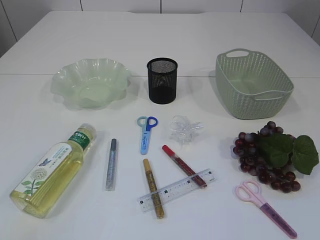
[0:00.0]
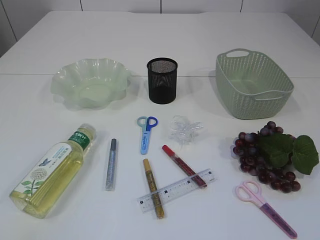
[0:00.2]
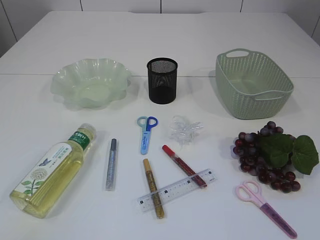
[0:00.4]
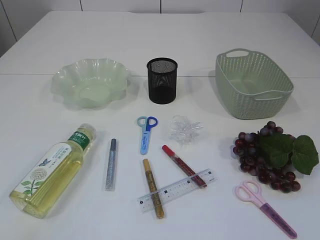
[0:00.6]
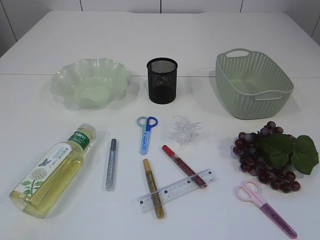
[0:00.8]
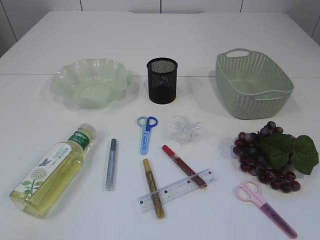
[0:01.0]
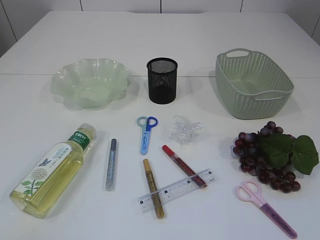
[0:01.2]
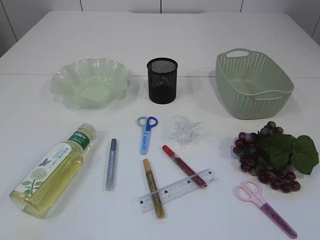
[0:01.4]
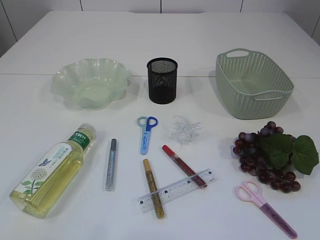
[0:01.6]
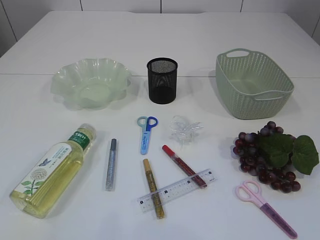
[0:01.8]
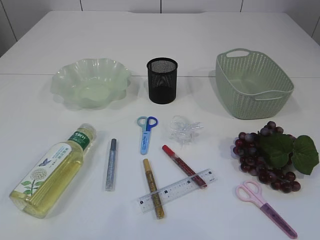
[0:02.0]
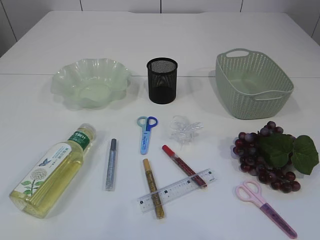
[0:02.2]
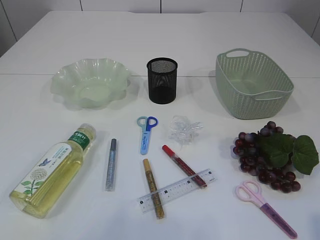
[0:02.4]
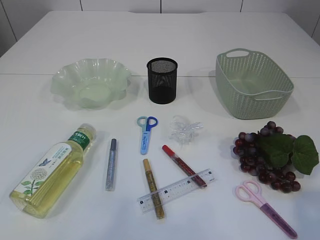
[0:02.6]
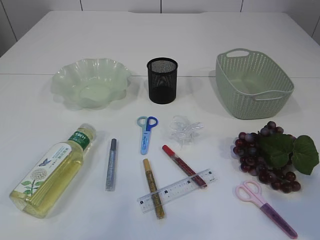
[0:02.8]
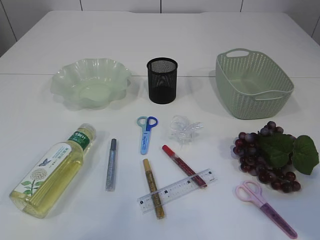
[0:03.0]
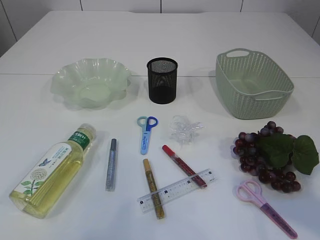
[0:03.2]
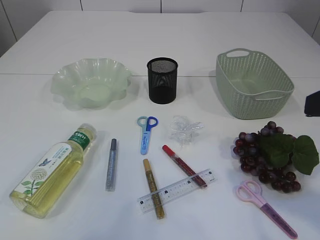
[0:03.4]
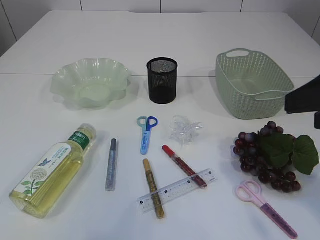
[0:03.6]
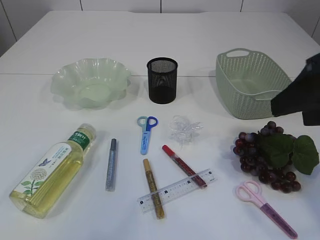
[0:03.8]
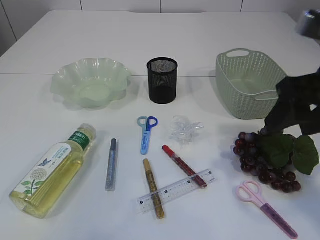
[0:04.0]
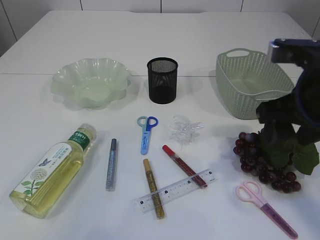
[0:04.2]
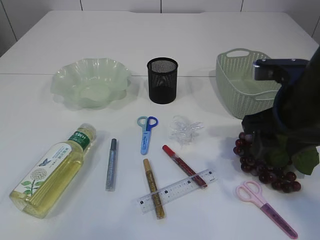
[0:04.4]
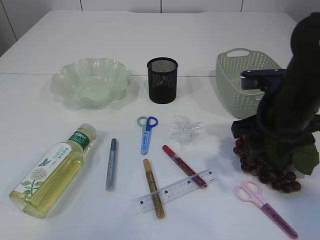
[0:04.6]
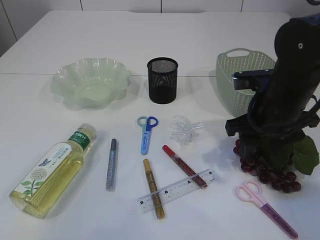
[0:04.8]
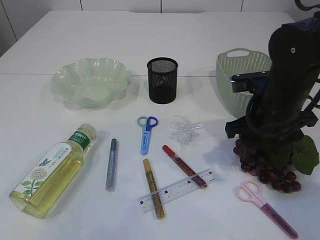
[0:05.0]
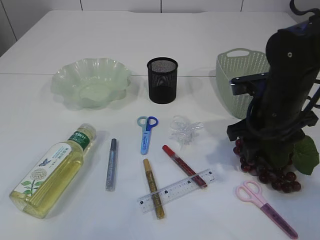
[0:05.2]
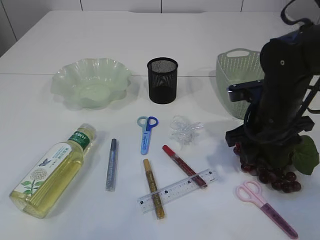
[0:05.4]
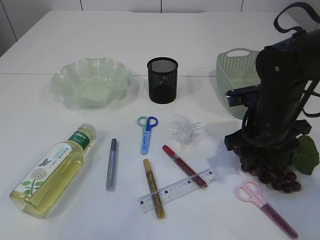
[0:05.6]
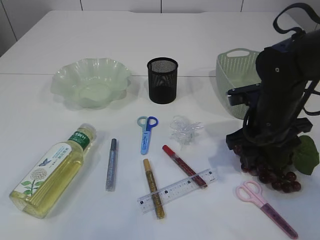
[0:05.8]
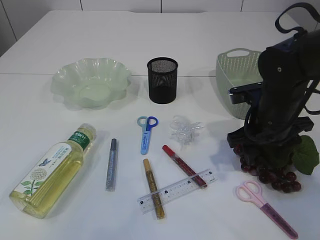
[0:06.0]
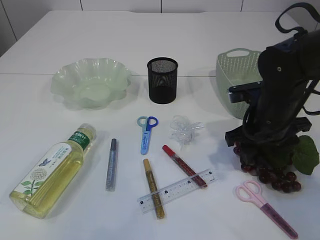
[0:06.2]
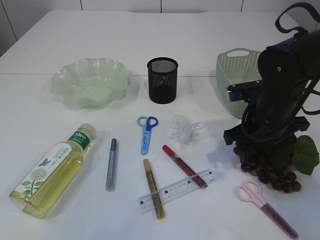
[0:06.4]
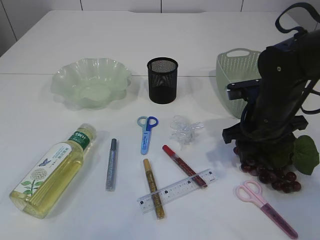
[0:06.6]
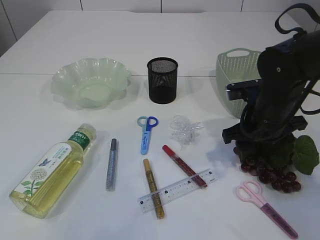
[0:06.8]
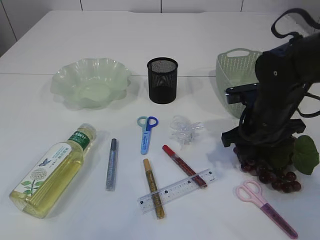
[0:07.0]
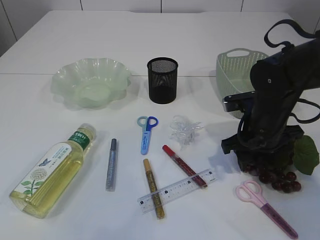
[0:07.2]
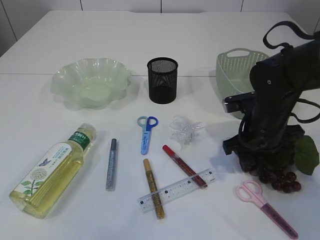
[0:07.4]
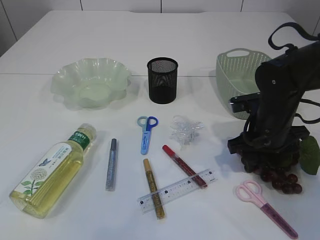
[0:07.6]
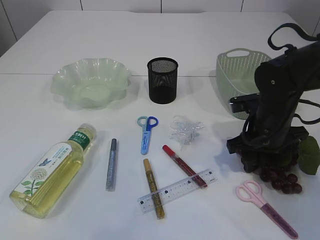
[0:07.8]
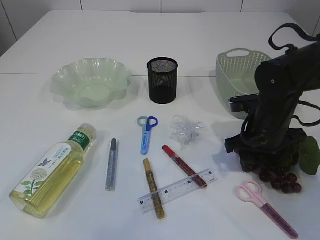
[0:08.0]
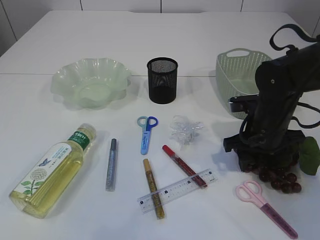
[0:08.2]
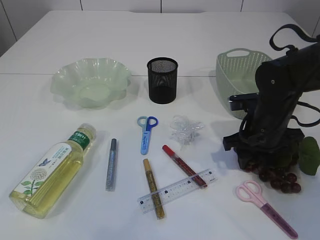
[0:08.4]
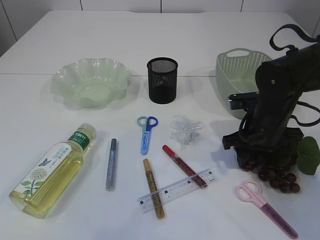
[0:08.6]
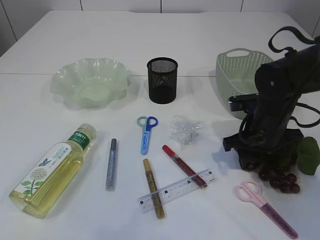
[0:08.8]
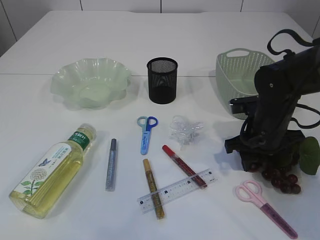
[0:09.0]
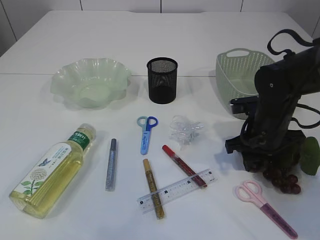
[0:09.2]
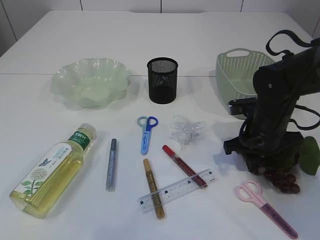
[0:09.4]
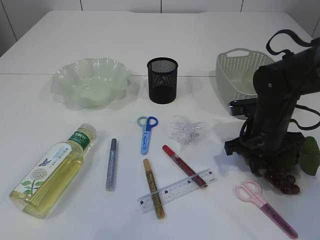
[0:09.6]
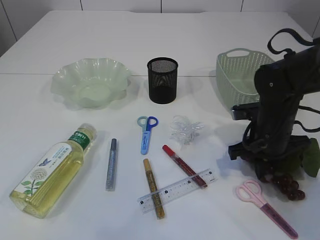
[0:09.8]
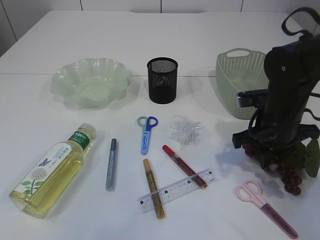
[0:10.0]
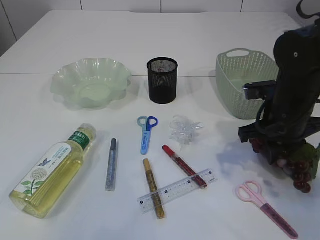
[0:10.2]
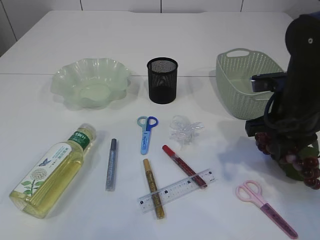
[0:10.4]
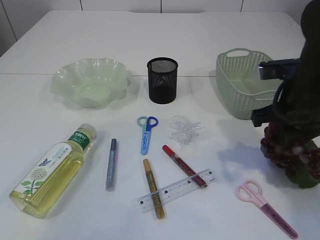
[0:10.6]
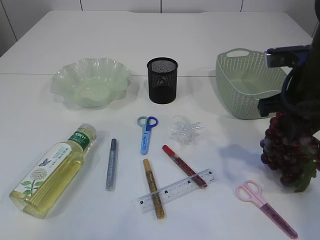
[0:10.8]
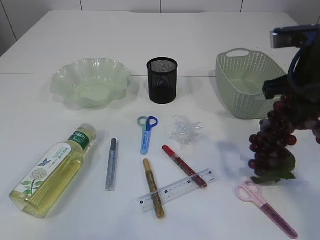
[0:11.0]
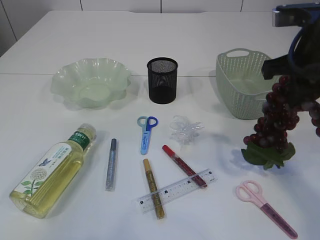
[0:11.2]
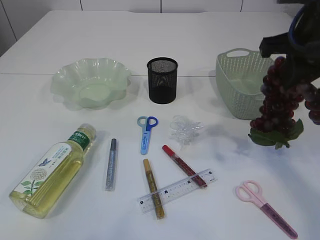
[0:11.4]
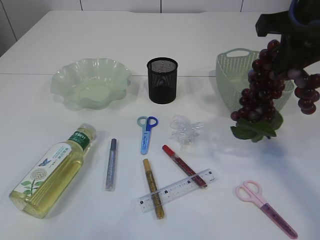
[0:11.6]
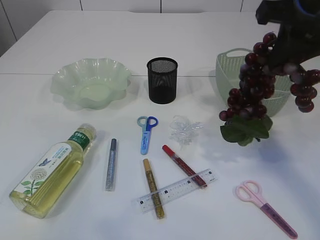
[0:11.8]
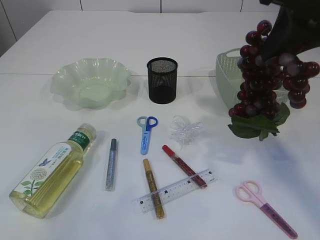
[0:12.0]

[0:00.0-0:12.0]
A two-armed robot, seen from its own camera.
Step, 0:00.0 to 0:11.2: Pick up the grapes.
0:01.6 to 0:03.0: The right gripper travels forward and upward by some 15 cm, and opens.
0:03.0 to 0:04.4: The right gripper shifts about 20 cm forward and downward.
0:04.4 to 0:06.0: The right gripper is displaced downward and forward by some 10 cm.
0:06.0 to 0:09.0: There are only small adjustments of the grippers.
0:09.0 to 0:10.4: The right gripper shifts roughly 10 cm upward, and closes its fingers.
0:10.4 to 0:12.0: The right gripper moves upward, roughly 20 cm.

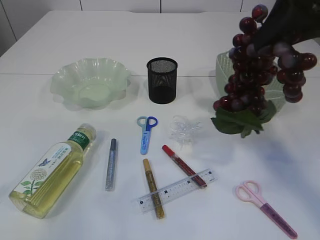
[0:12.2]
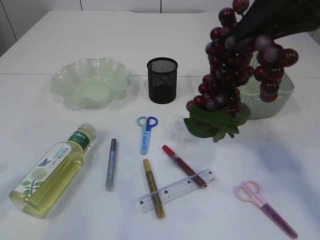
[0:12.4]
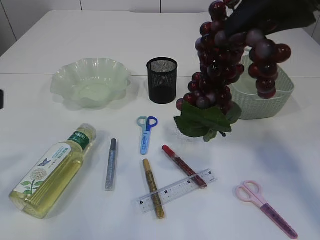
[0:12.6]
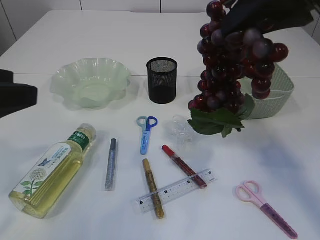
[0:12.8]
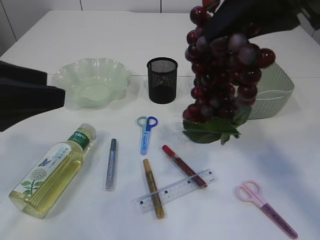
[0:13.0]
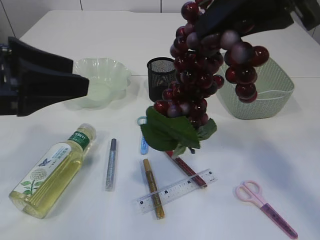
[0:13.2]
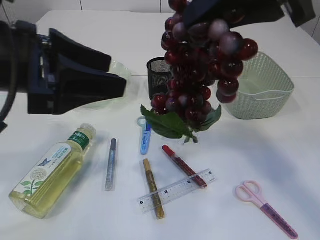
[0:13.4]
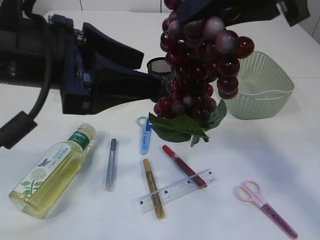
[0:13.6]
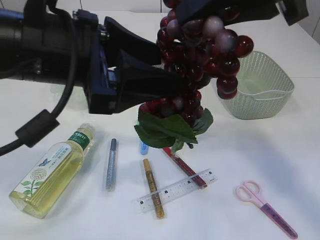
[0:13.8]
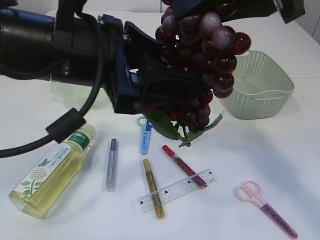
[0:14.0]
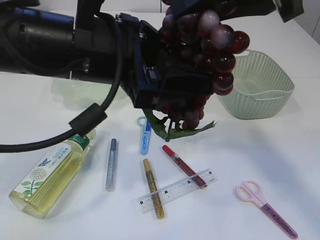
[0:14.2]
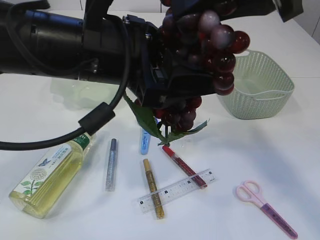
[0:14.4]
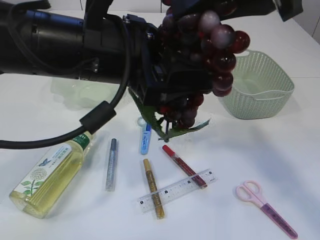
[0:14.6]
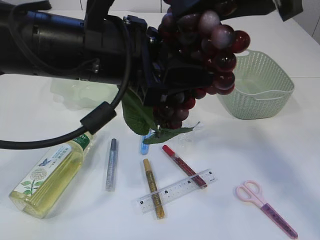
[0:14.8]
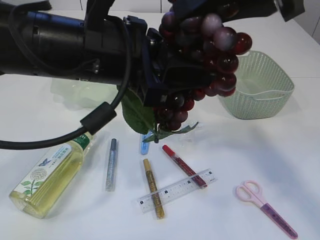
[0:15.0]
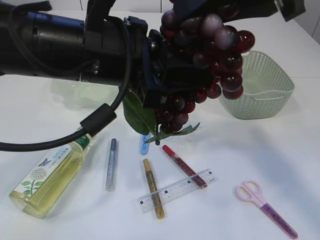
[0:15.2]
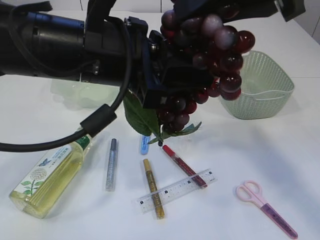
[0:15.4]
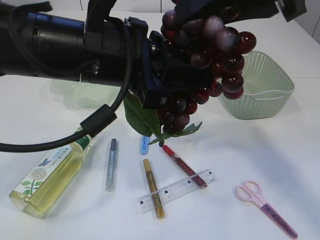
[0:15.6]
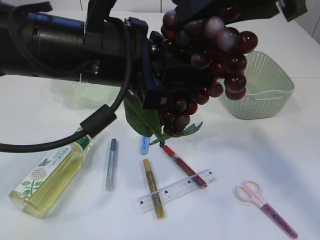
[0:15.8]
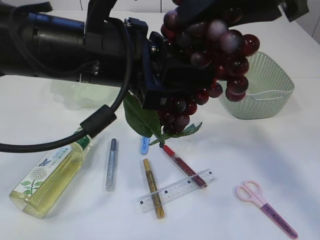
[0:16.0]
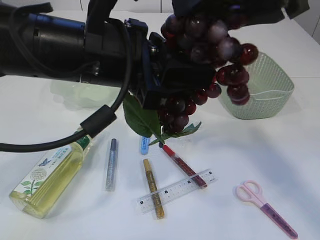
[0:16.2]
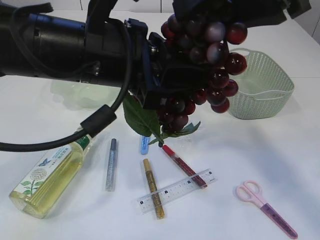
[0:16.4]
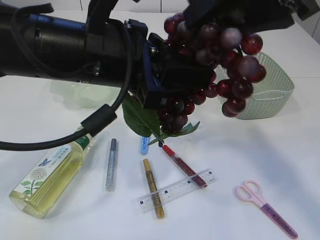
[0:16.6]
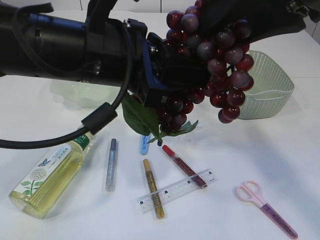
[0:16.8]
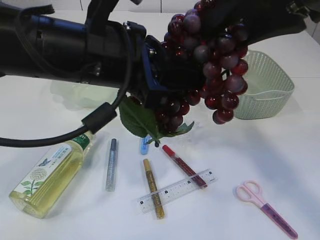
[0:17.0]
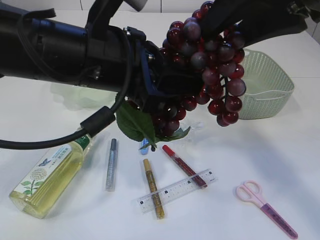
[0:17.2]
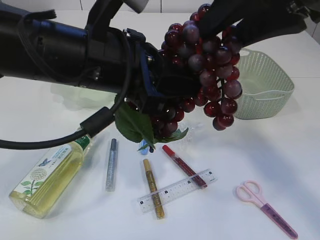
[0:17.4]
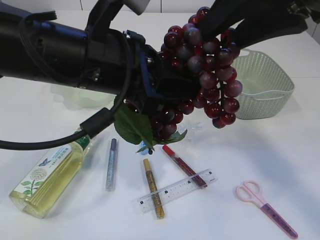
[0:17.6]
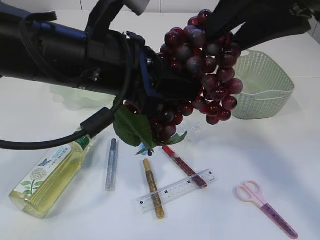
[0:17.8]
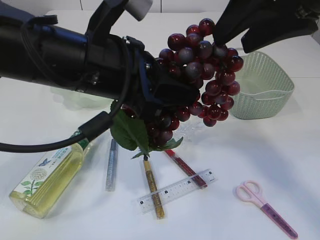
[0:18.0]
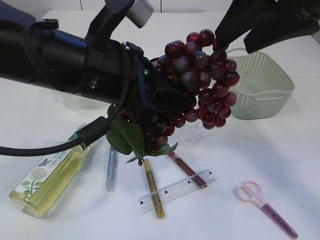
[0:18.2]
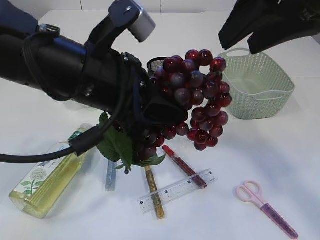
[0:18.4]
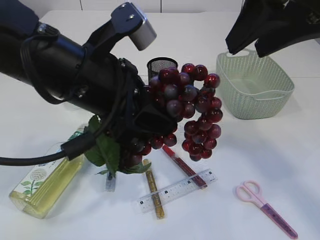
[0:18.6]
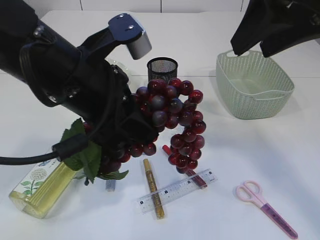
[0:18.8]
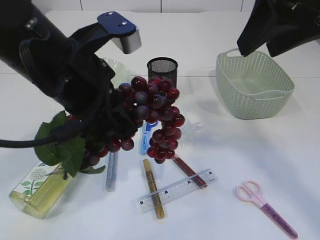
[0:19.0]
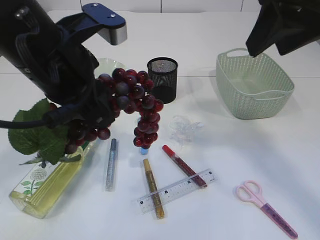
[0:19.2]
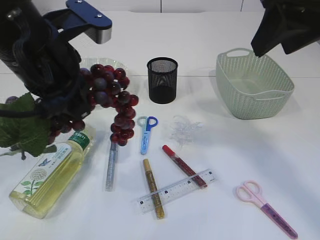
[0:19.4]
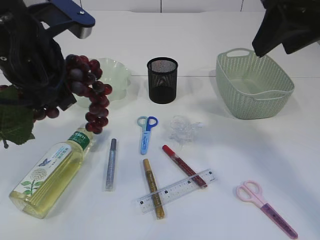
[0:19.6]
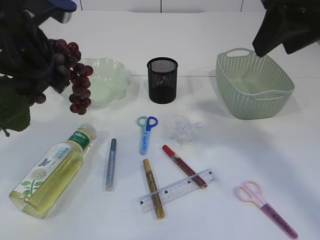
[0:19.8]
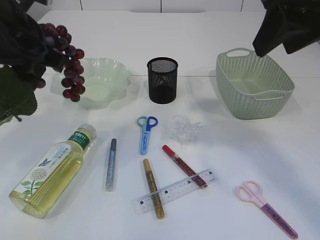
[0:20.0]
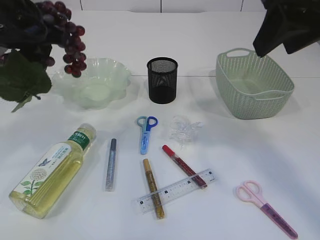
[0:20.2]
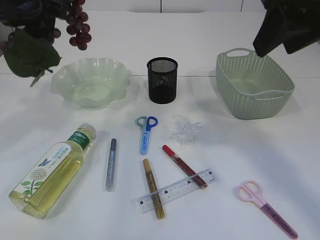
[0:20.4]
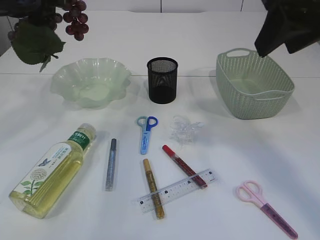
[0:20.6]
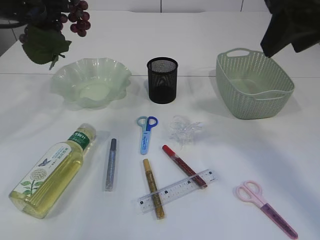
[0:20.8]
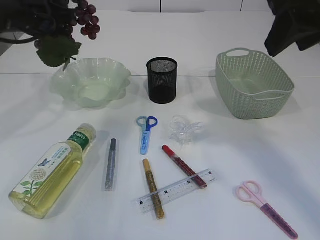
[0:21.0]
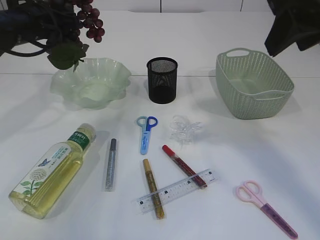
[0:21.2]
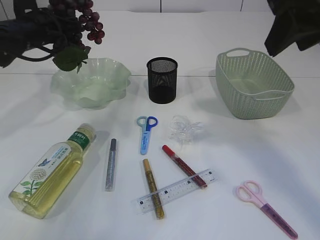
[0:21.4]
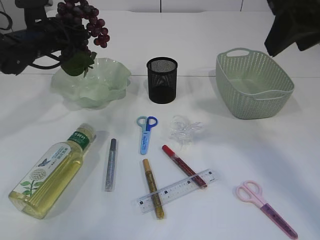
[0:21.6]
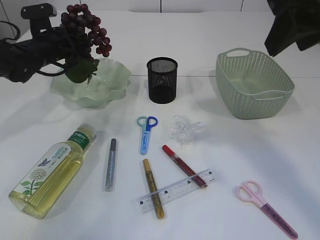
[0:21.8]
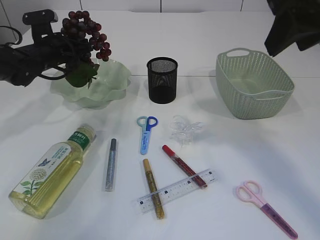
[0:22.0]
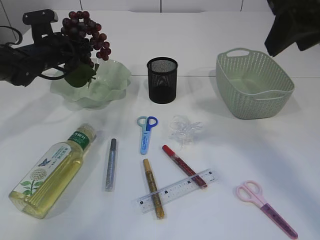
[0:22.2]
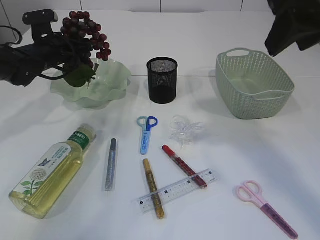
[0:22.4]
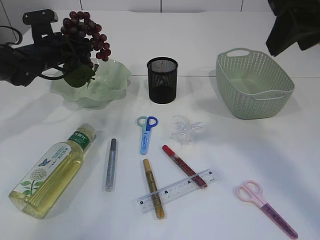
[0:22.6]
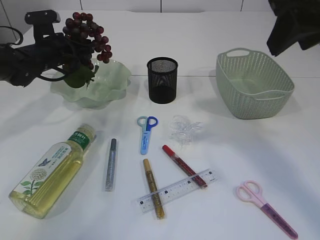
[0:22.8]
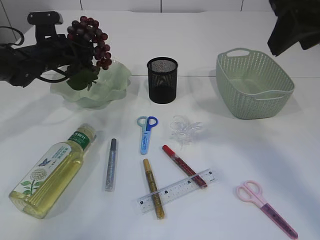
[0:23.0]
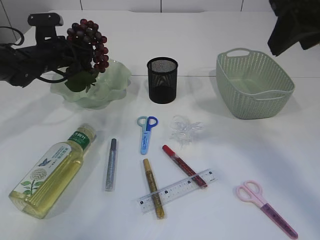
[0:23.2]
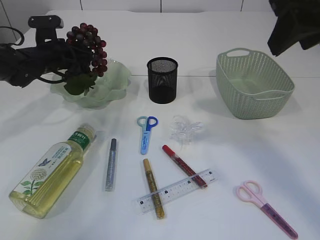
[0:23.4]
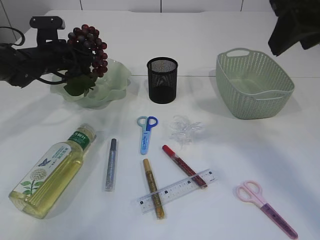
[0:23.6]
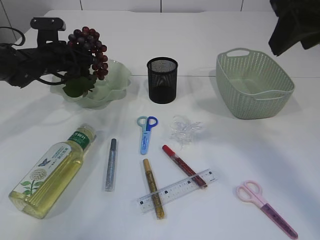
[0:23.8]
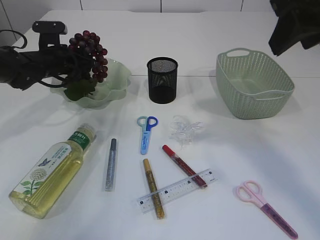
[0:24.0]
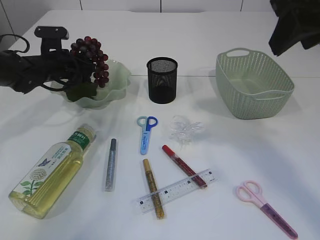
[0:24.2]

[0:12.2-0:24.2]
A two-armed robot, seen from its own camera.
Step, 0:12.2 to 0:18.6: Hand over the grapes.
0:12.2 to 0:13.8: The right gripper goes approximately 5 cm to the left. Meanwhile the left gripper shifts about 20 cm to the right and forward.
0:13.8 to 0:15.2: The left gripper closes.
0:15.2 to 0:16.6: The right gripper opens its fingers.
0:18.2 to 0:19.8: The left gripper is displaced to the left by approximately 10 cm.
0:19.8 to 0:21.2: The left gripper heads forward and to the left, covering roughly 20 cm.
0:21.2 to 0:22.6: The left gripper goes roughly 10 cm downward and forward.
0:22.6 to 0:24.2: The grippers move only a little.
